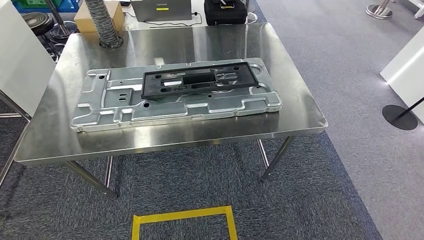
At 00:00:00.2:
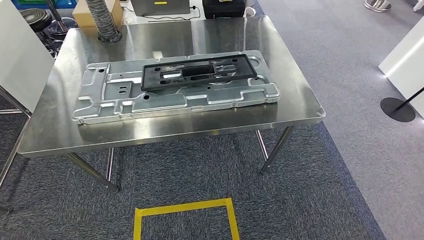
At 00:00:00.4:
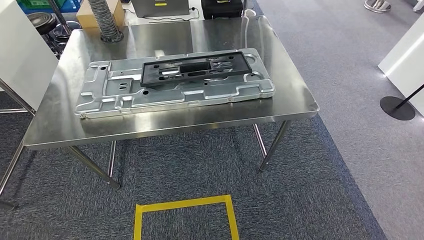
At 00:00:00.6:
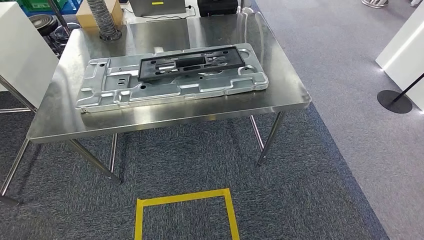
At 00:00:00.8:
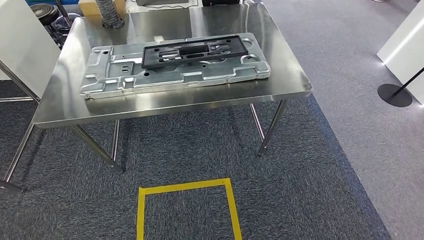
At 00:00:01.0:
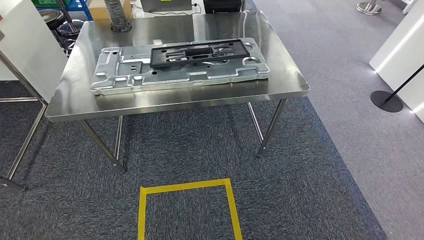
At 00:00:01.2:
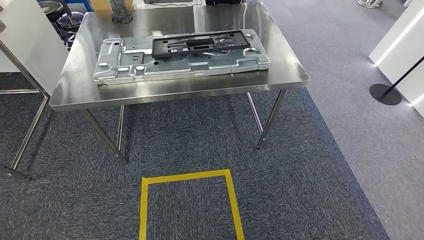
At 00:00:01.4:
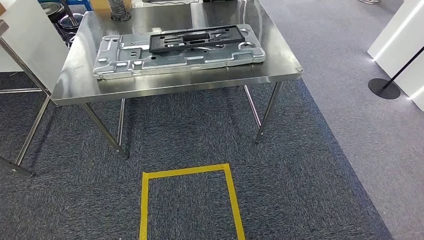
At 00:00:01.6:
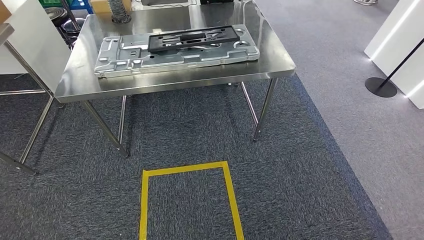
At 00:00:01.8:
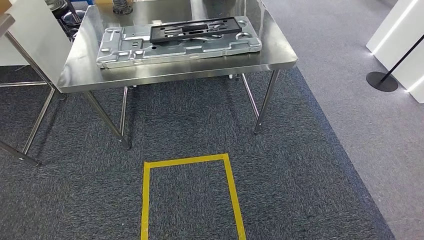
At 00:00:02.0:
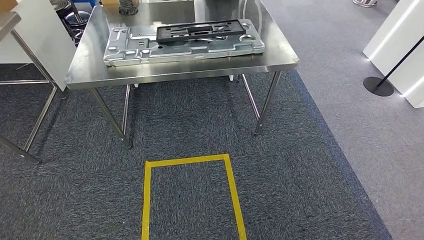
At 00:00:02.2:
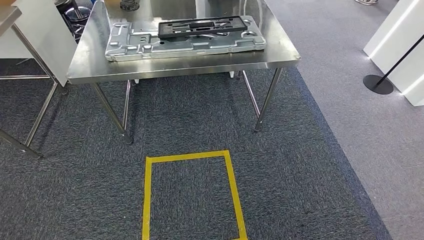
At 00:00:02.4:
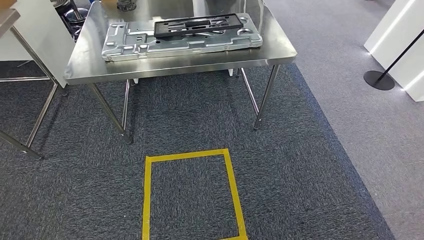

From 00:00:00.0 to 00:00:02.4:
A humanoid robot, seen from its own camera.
Step, from 00:00:00.0 to 00:00:02.4: Move to the initial position at the workbench.
